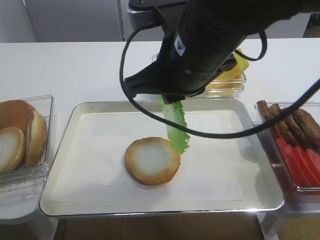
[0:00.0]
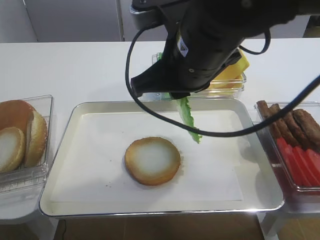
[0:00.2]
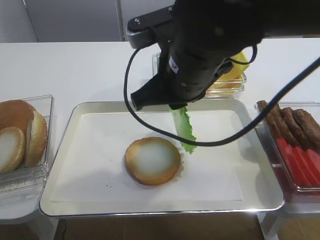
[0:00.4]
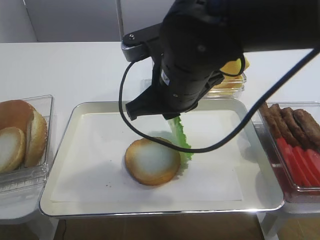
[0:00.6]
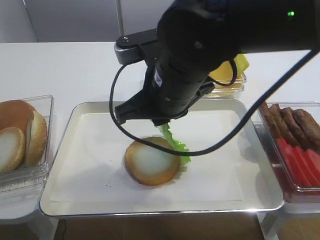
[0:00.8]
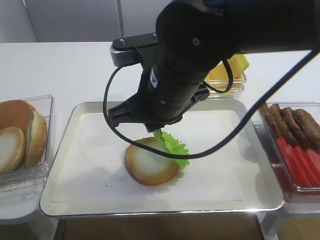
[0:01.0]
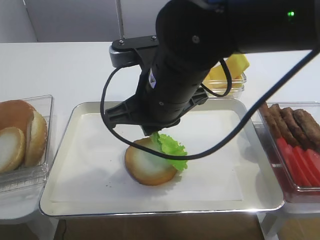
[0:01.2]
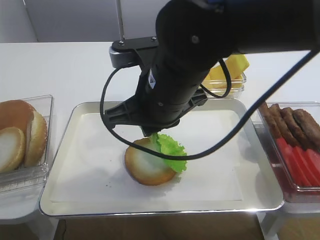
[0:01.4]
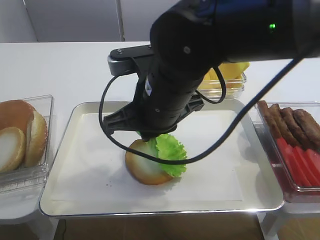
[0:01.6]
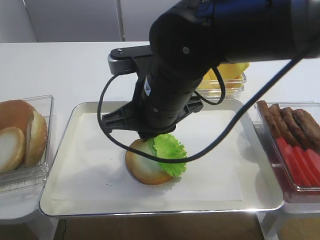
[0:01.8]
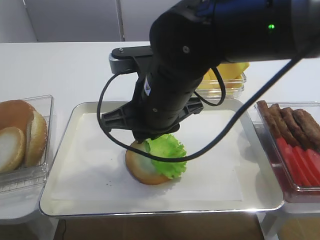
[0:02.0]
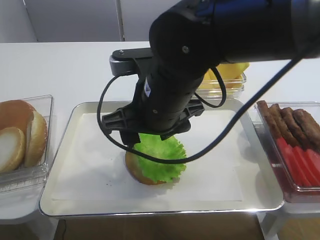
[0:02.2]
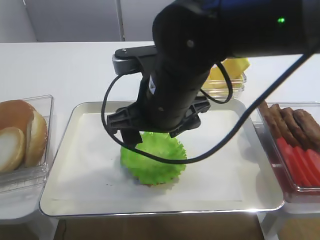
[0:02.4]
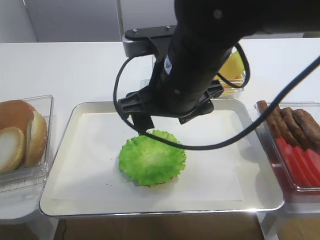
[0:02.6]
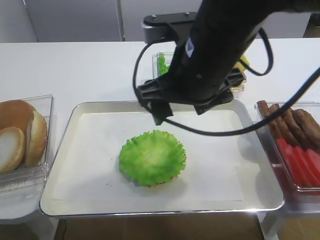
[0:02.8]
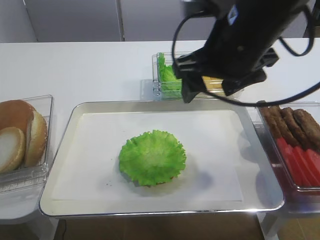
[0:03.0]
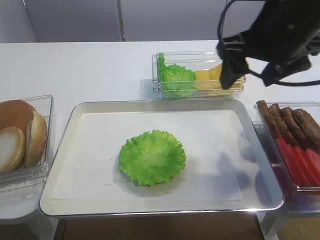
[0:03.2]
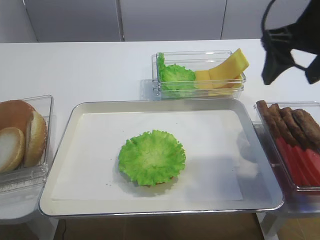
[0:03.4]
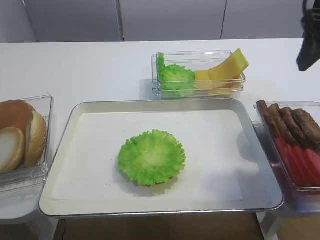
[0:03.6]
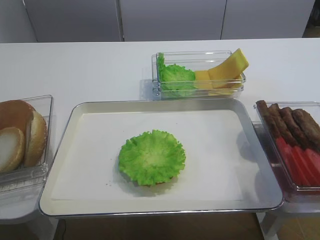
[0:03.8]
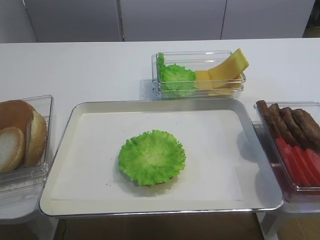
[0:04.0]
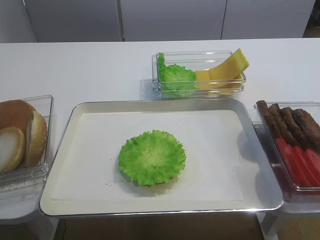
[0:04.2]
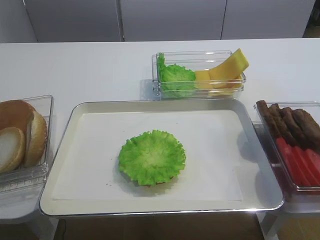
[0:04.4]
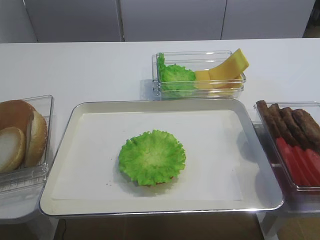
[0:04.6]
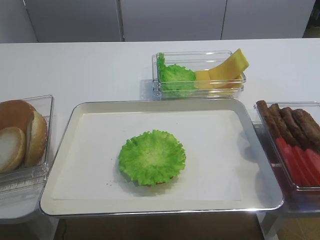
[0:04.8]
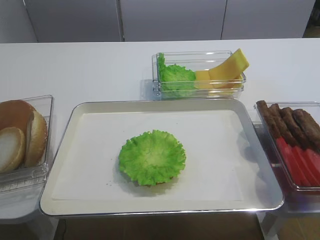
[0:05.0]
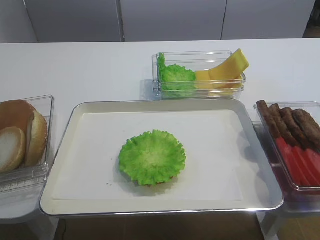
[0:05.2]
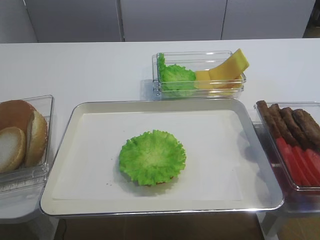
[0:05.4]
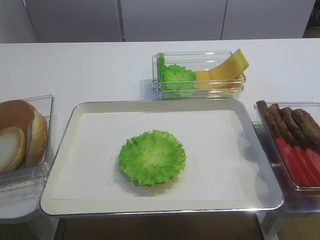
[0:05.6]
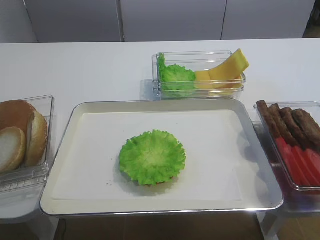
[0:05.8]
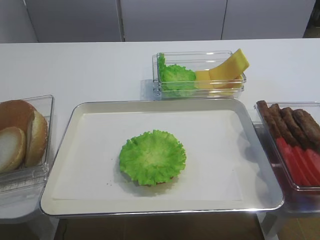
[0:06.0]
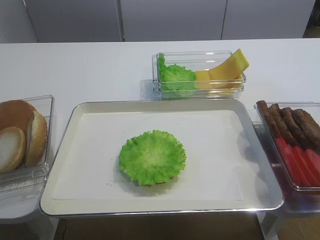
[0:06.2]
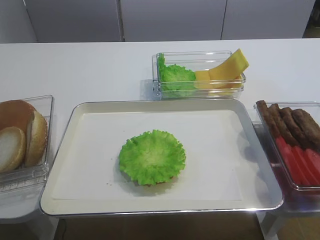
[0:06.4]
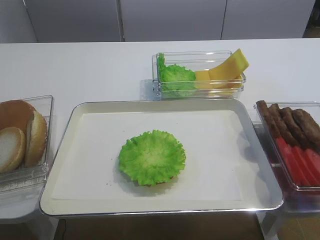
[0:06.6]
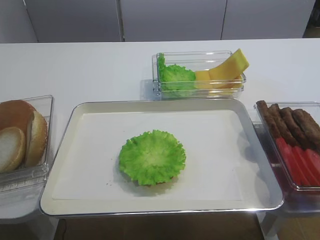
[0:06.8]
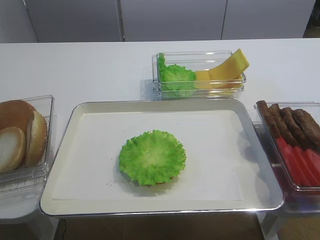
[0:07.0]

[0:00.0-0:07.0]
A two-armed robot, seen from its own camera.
Step, 0.0 to 2.4 s: Place the lettuce leaf on the bread slice with the right gripper.
0.0 to 1.4 s: The right gripper moves roughly 5 cm.
1.4 to 2.8 s: The right gripper opens its fingers.
2.8 to 4.2 s: The right gripper is displaced to the right and upward by approximately 25 cm.
4.2 to 5.6 s: The right gripper moves backward and downward, approximately 20 cm.

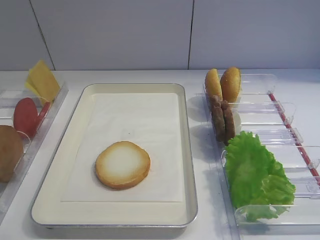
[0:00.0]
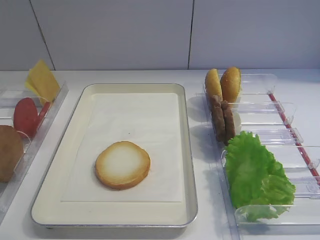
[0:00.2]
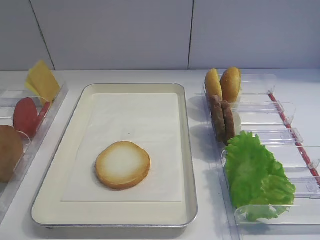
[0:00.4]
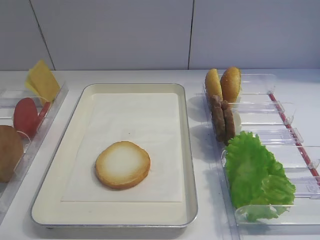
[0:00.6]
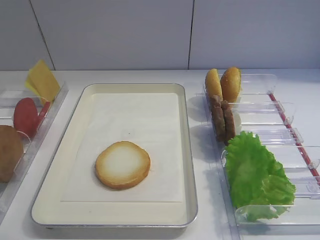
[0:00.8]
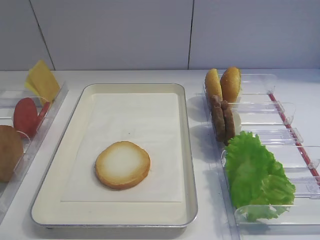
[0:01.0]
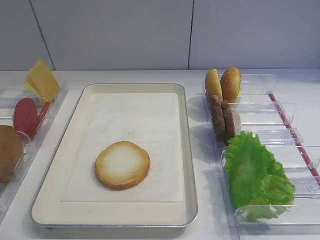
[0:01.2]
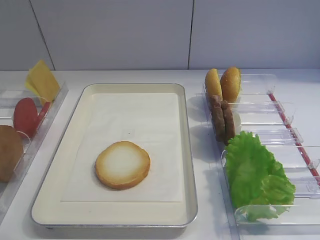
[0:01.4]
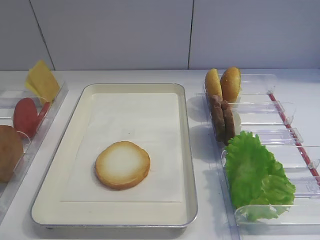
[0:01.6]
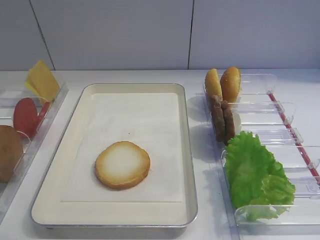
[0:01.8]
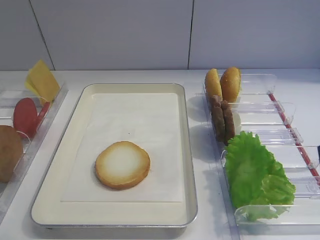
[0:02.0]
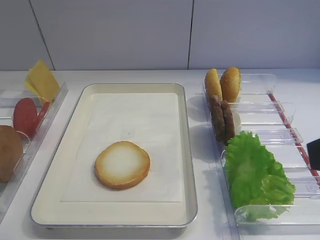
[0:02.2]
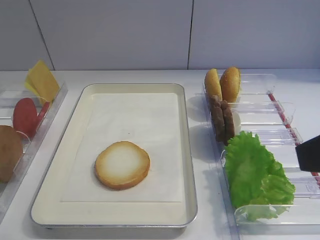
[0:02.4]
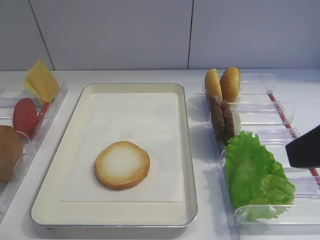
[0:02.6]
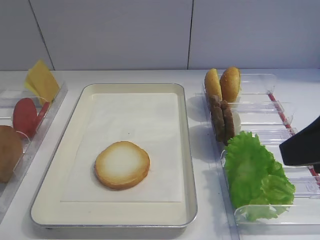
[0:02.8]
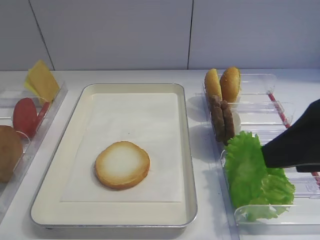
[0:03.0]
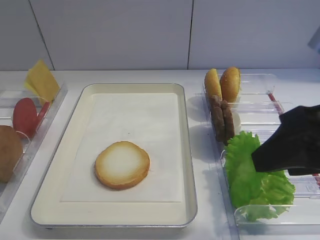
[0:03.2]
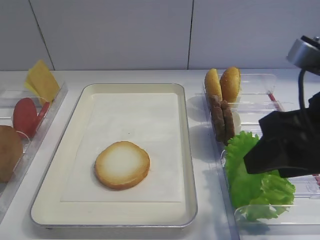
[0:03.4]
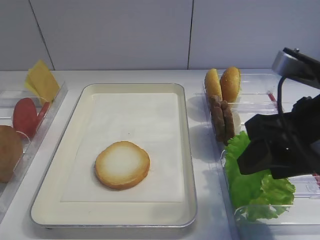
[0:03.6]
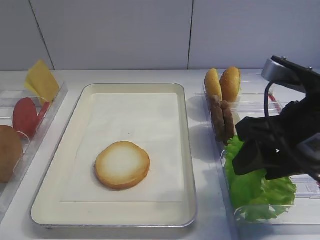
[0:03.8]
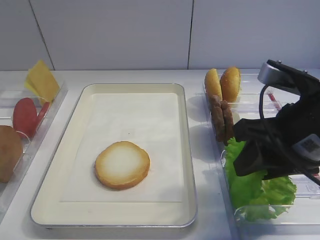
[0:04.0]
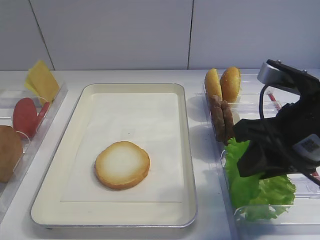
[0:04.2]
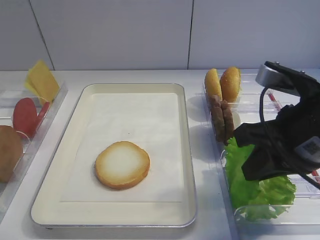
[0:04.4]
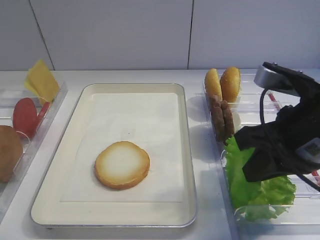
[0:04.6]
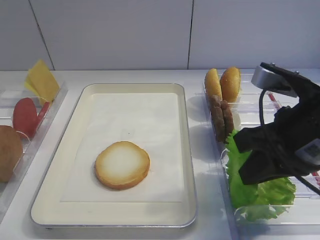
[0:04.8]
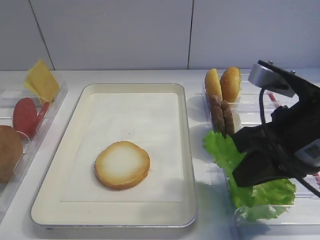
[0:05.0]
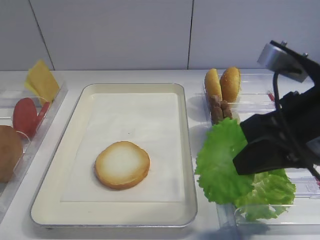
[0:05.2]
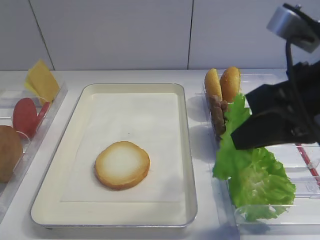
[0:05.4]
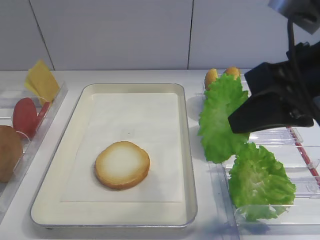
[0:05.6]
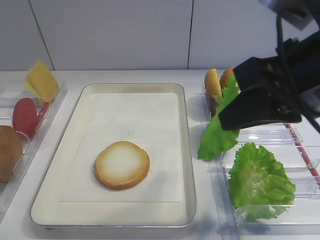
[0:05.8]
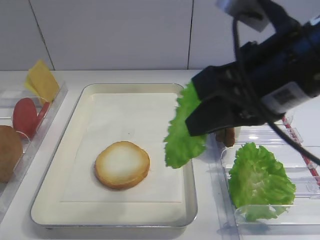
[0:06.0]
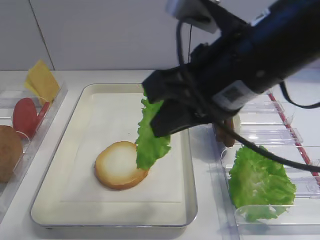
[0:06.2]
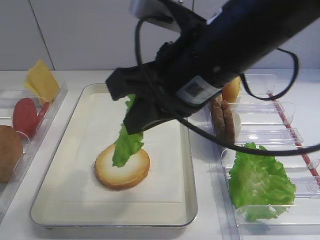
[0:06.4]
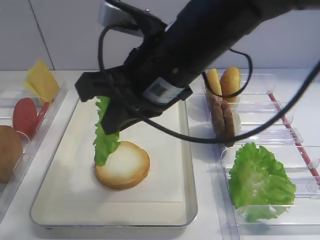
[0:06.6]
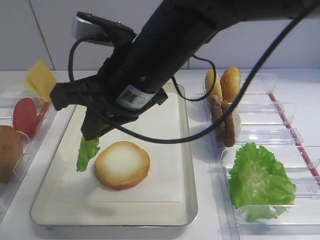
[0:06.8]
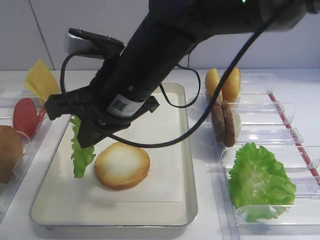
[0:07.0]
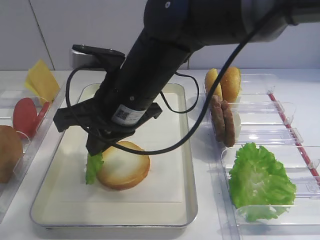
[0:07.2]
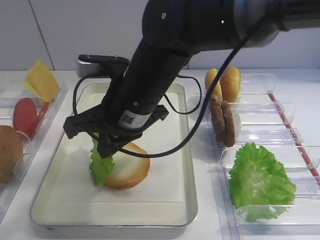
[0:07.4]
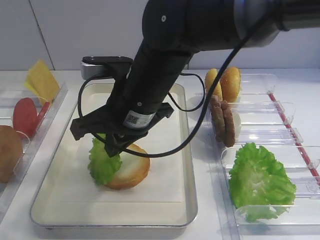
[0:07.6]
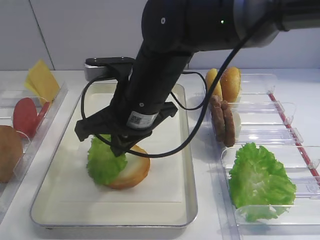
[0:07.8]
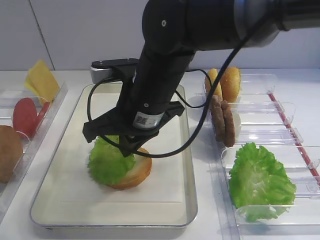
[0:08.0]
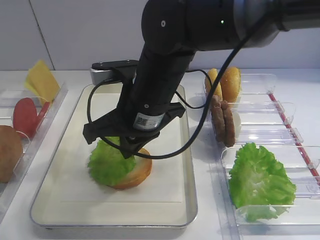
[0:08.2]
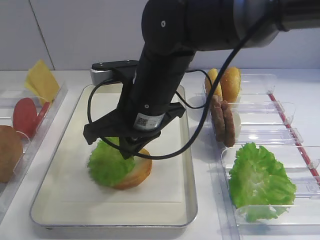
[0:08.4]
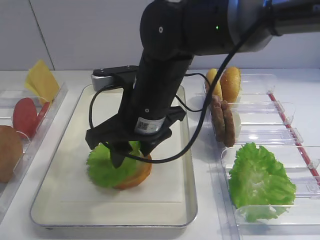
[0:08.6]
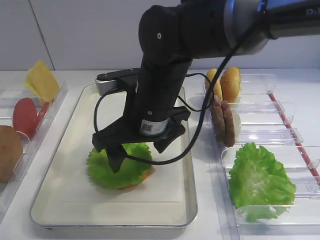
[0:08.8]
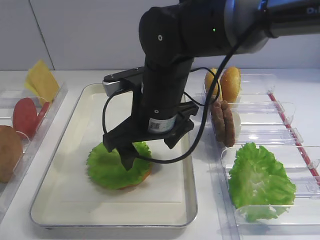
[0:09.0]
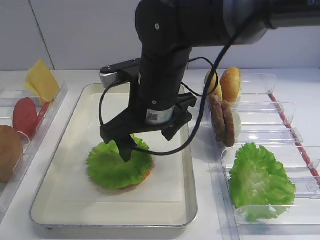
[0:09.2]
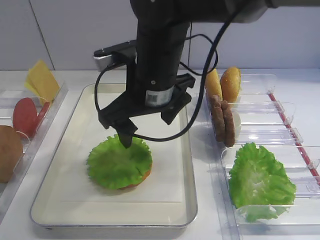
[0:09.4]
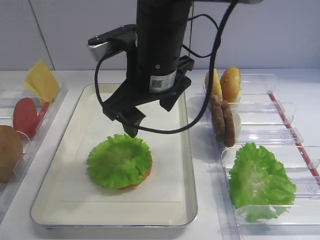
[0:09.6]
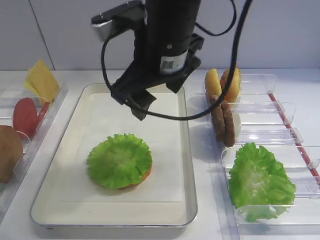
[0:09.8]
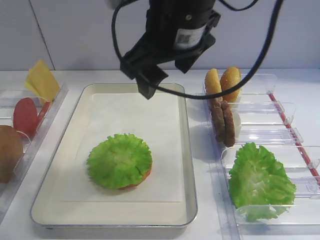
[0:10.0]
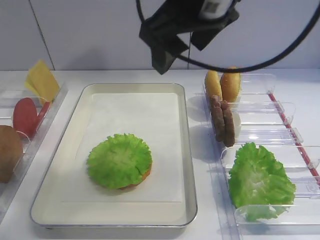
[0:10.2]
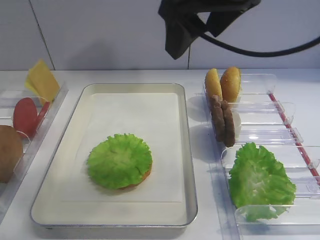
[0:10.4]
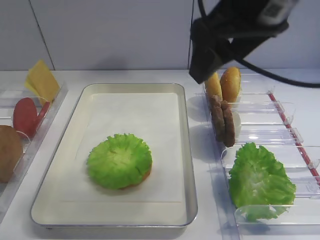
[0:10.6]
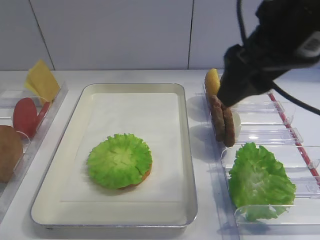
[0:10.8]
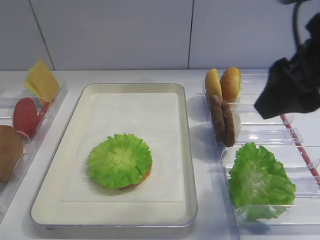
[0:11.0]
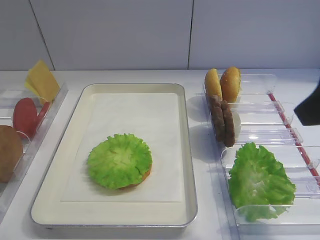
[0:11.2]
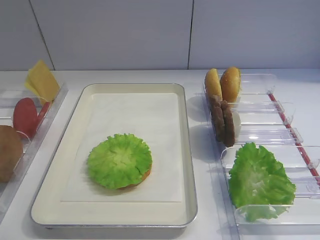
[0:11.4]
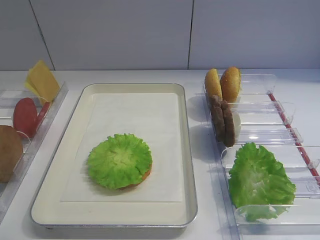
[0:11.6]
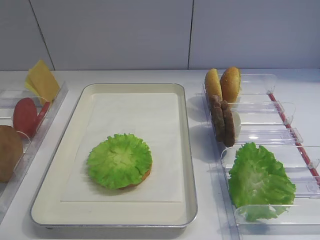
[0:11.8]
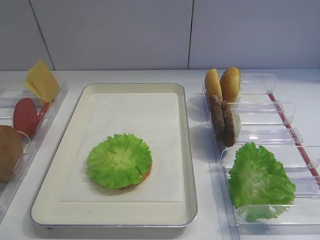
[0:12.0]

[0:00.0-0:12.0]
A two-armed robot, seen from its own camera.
Step, 0.0 to 5.2 s: Pick up the lettuce leaf with the right gripper.
Step, 5.4 to 9.2 s: Place the lettuce leaf on the bread slice with the right gripper.
1.6 to 3.0 s: The right gripper goes some 10 cm forward.
3.0 to 4.4 s: The right gripper travels downward and forward by some 10 cm, and closes its fingers.
4.4 to 6.0 s: The right gripper goes some 10 cm upward and to the left.
6.0 to 7.6 s: The right gripper travels to the left, forward and downward by approximately 20 cm.
7.6 to 9.0 s: The right gripper opens its fingers.
9.0 to 10.4 s: The right gripper travels upward and to the right by roughly 20 cm.
10.4 to 12.0 s: The right gripper is displaced backward, to the right and downward by roughly 30 cm.

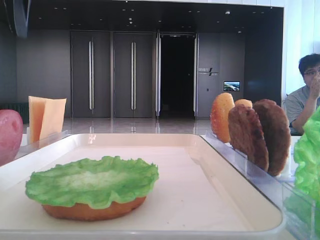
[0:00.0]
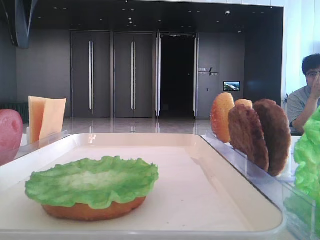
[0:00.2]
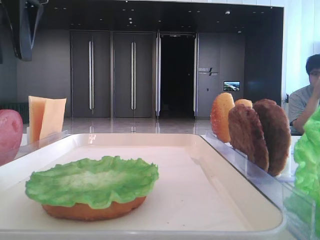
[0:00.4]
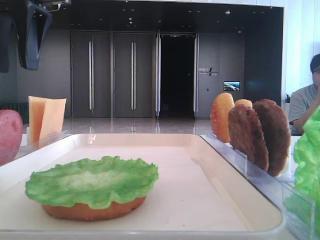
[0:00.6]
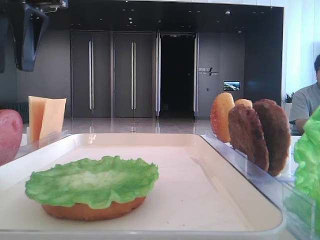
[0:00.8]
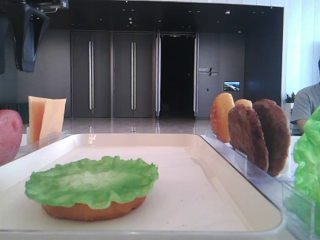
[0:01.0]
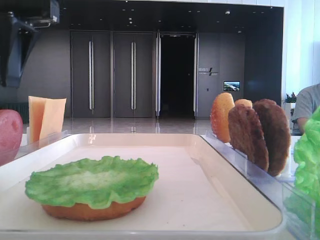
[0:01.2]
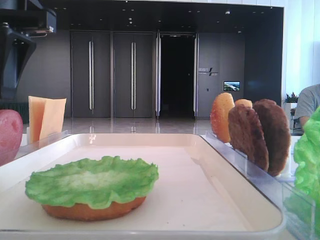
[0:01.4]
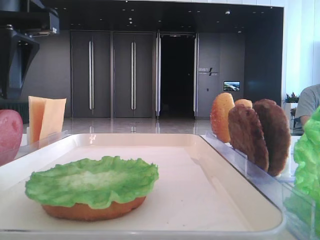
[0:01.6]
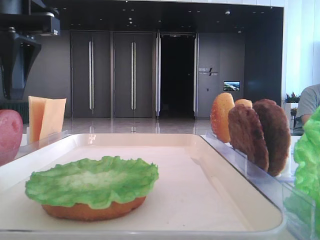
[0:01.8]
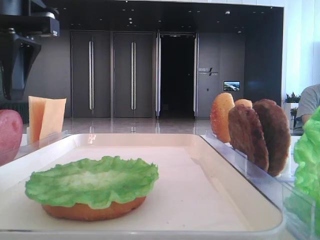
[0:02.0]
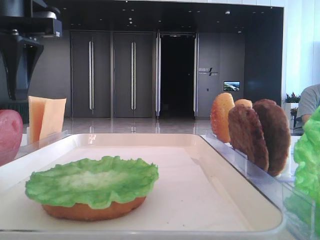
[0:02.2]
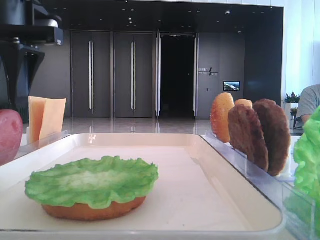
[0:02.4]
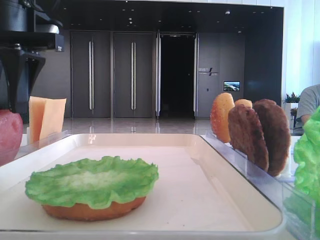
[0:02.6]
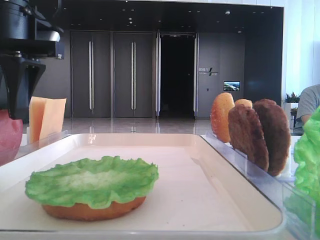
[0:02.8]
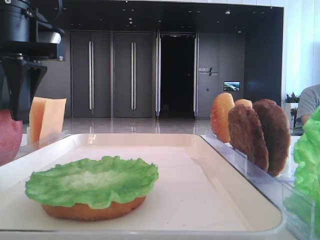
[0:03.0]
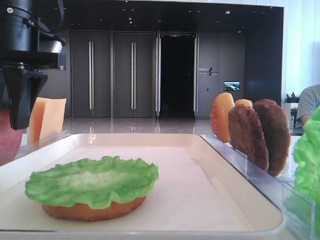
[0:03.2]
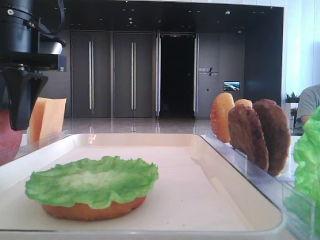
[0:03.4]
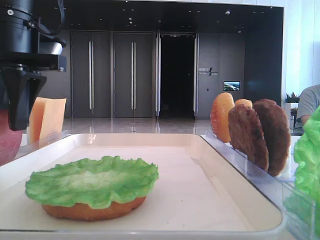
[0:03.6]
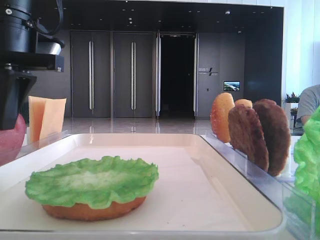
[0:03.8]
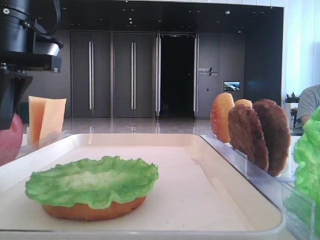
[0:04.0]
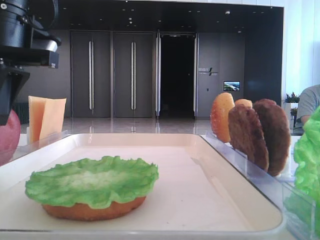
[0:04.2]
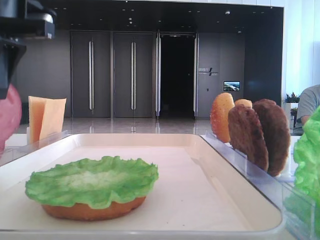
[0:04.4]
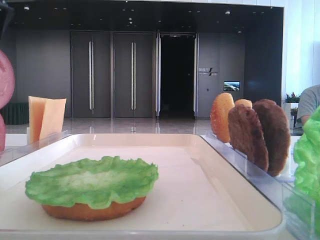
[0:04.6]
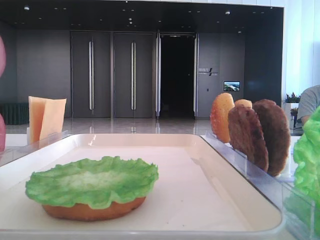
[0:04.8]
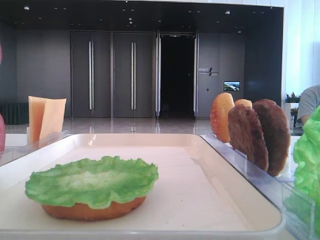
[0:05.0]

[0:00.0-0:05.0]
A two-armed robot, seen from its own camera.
Step, 0.0 to 3.8 s: Pick up the tomato slice with the left hand.
0.0 to 1.6 s: The left gripper travels downward by approximately 5 cm.
1.6 to 3.4 s: The grippers make only small movements.
3.4 to 5.0 s: The left gripper moves upward and backward, some 10 cm, and closes.
